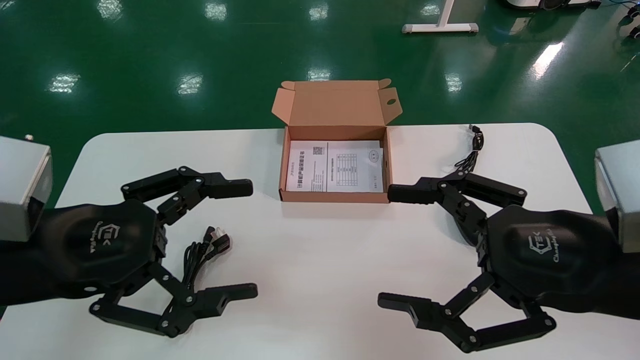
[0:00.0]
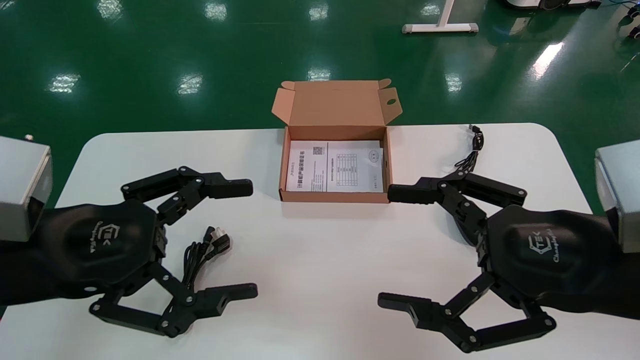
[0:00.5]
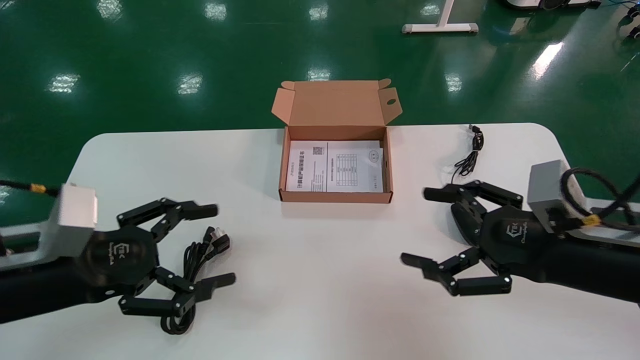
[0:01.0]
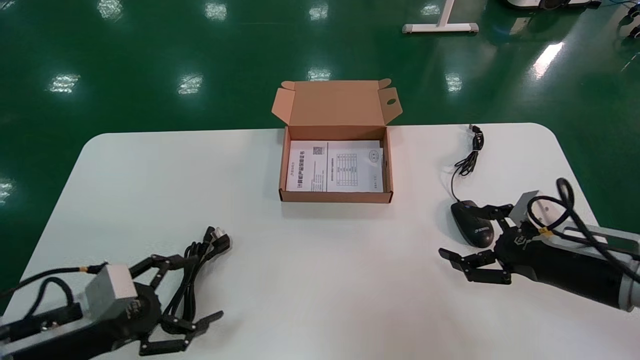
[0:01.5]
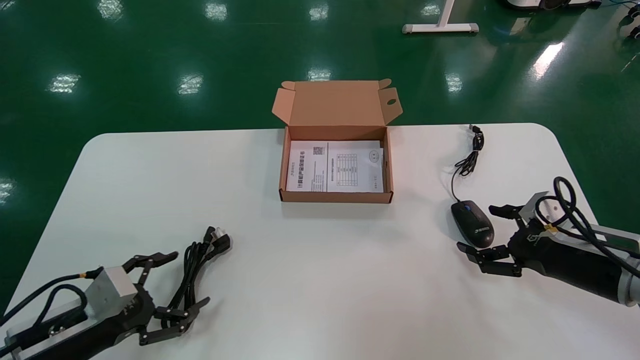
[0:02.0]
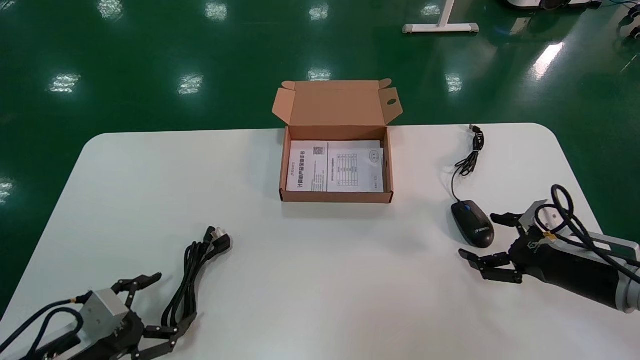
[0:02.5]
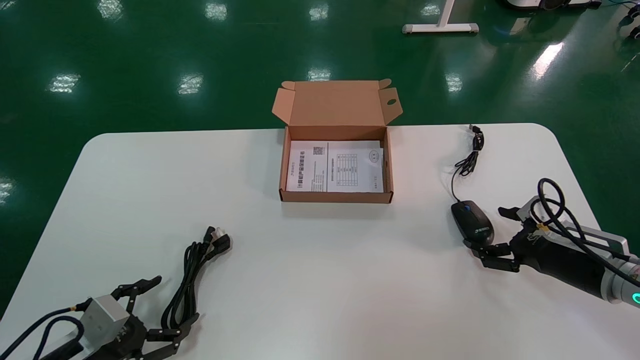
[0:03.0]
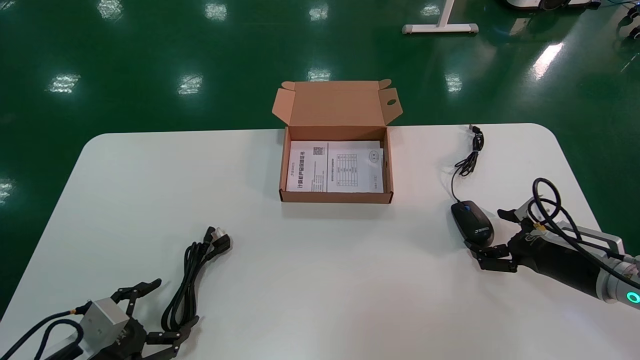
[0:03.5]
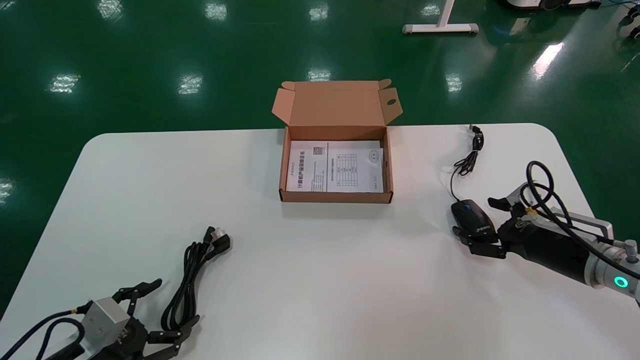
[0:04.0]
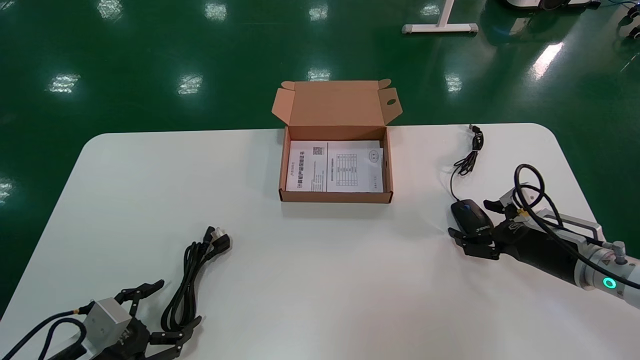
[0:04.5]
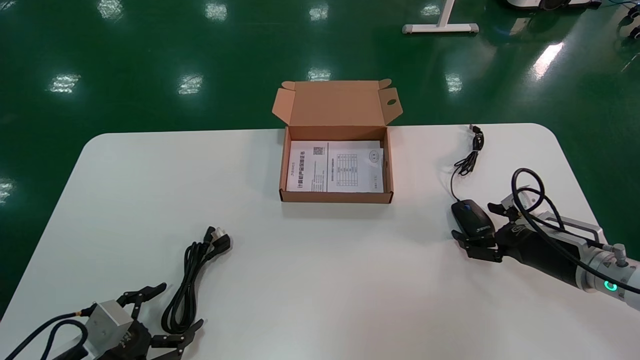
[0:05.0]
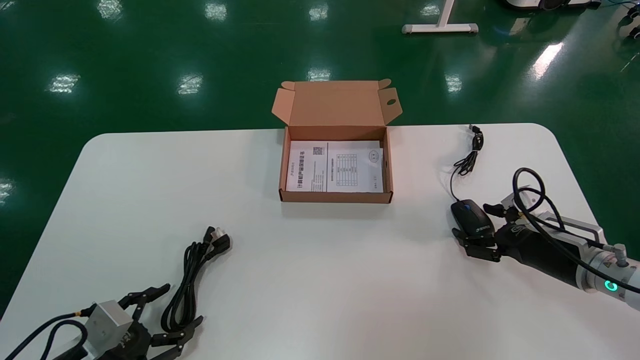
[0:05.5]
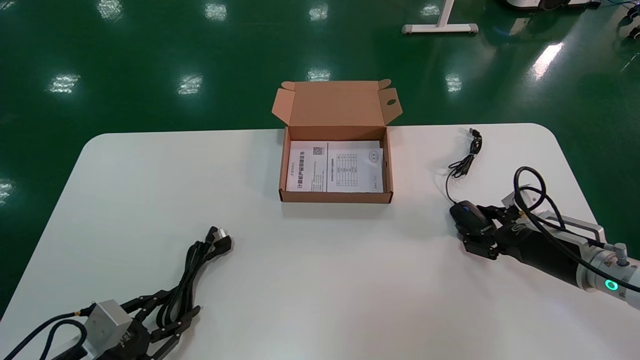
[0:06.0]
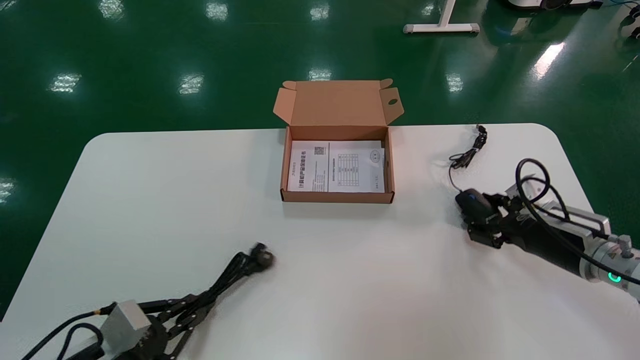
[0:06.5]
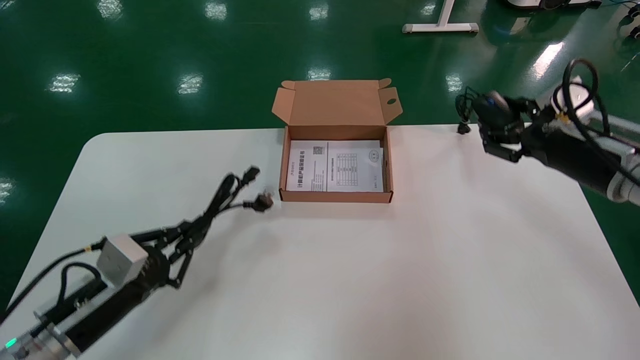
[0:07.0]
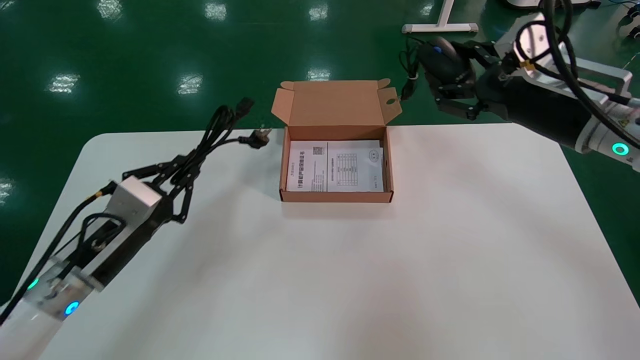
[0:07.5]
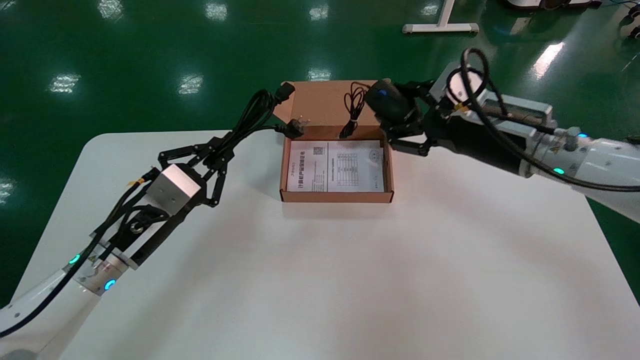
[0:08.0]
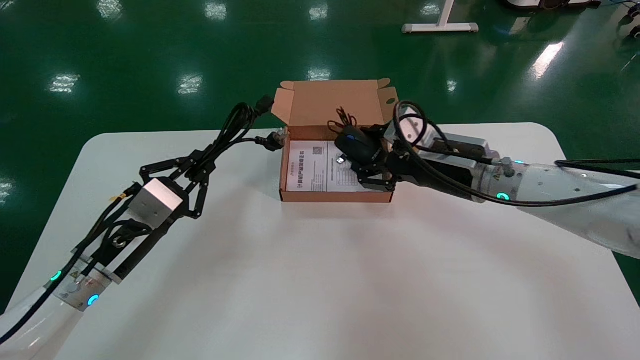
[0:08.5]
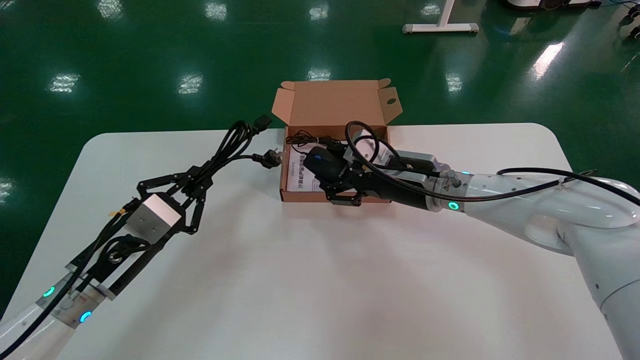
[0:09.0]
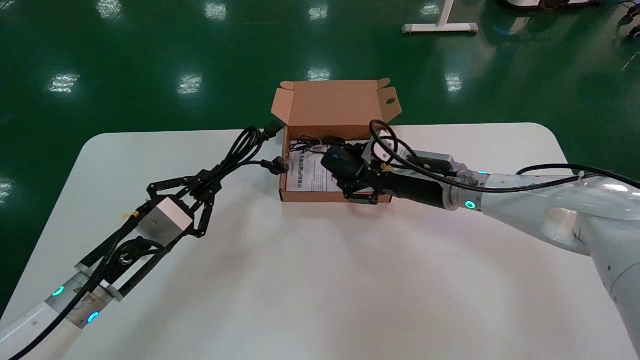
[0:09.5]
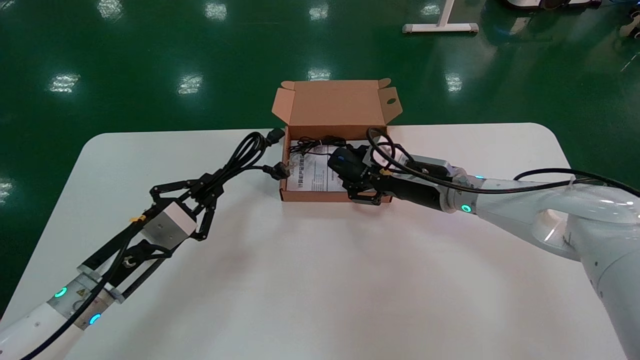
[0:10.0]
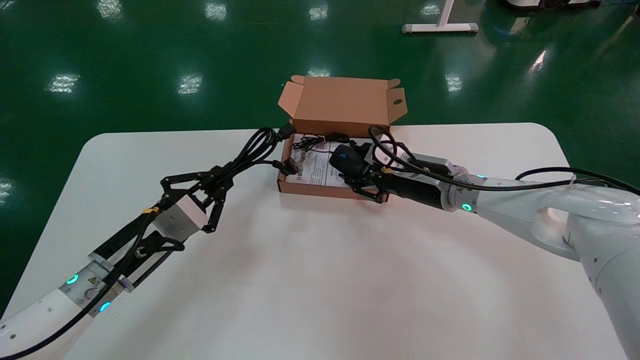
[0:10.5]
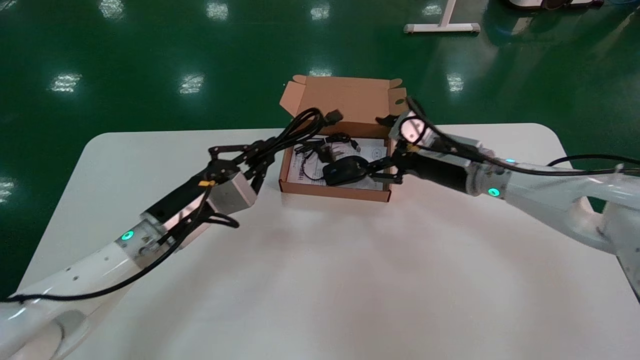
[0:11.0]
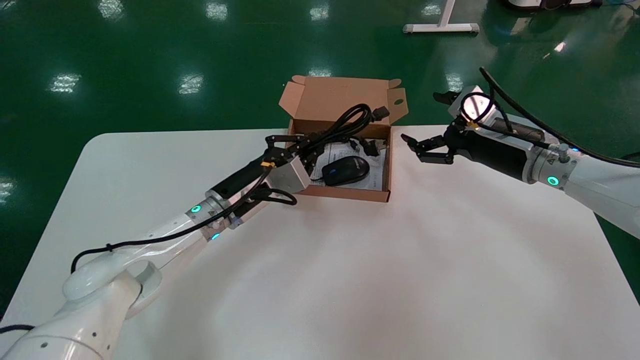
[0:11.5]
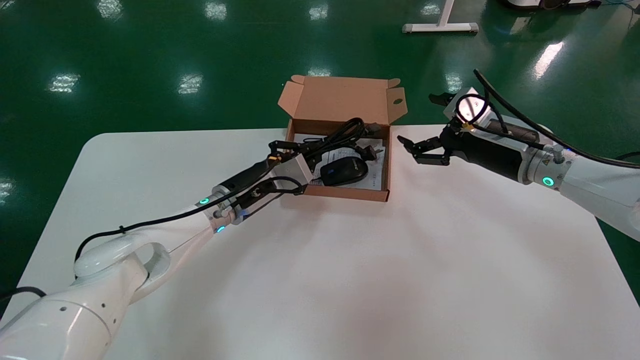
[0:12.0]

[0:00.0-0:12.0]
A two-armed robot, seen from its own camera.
Step, 0:01.0 to 0:06.0: Grab and pick up the mouse and power cord from the accessory packaging area.
0:00.0 to 0:02.0: The right gripper moves forward, downward and to the right, roughly 20 cm. Meanwhile the left gripper moves downward, some 20 cm.
0:02.0 to 0:04.0: The left gripper travels downward by roughly 5 cm.
0:04.0 to 0:06.0: The left gripper closes up. The right gripper closes.
0:06.0 to 0:08.0: The left gripper goes approximately 20 cm upward, forward and to the right, and closes. The right gripper heads upward and to the left, covering approximately 20 cm.
0:08.0 to 0:10.0: The right gripper travels downward, forward and to the left by some 15 cm.
0:10.0 to 0:12.0: The left gripper shifts about 20 cm forward and to the right. Meanwhile the right gripper shifts roughly 10 cm to the right and upward, and opens up.

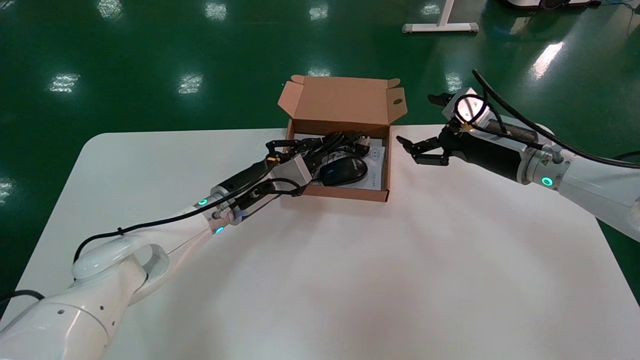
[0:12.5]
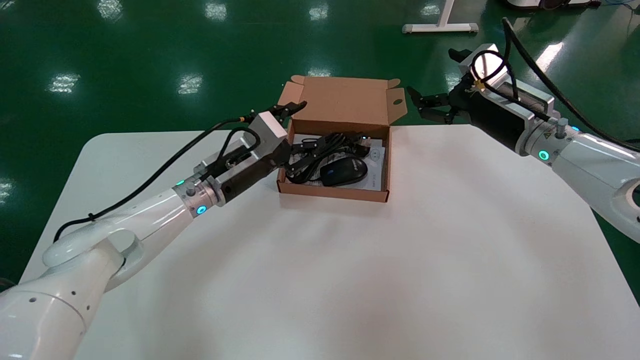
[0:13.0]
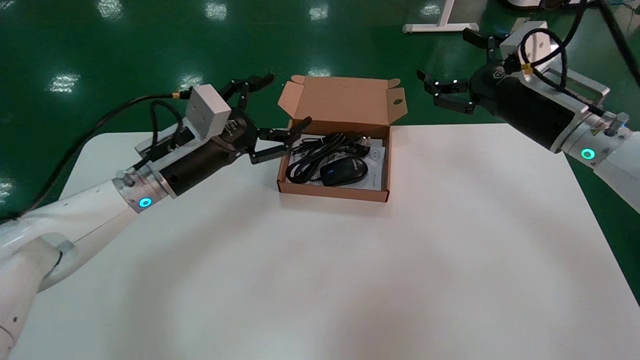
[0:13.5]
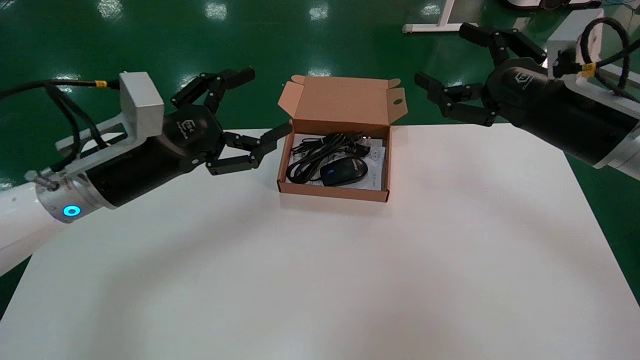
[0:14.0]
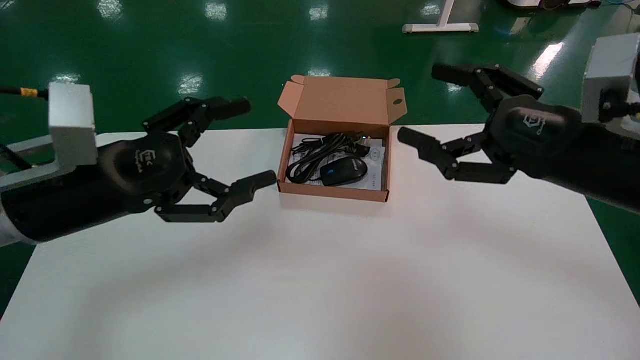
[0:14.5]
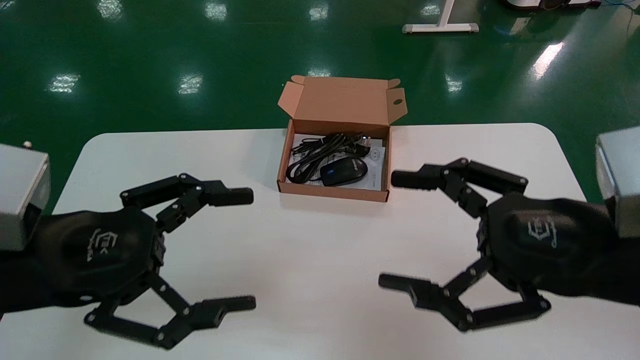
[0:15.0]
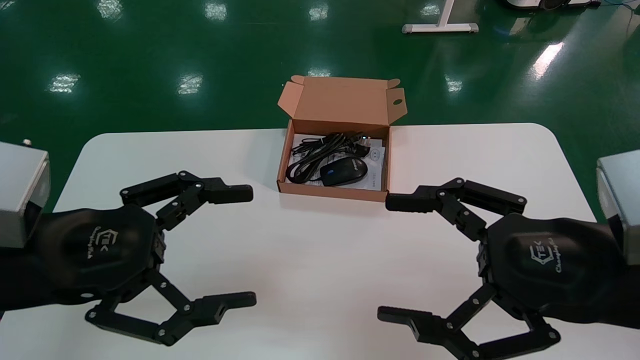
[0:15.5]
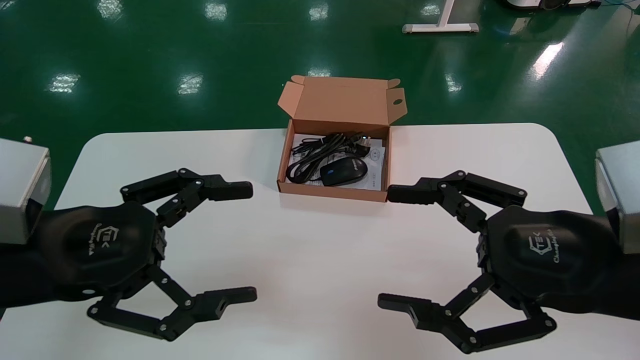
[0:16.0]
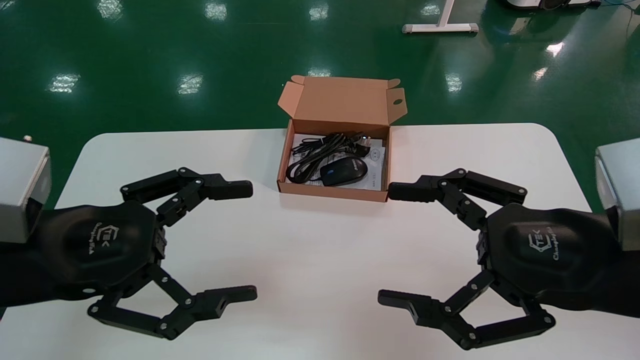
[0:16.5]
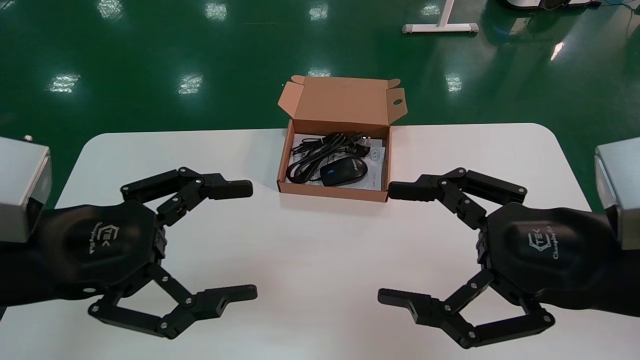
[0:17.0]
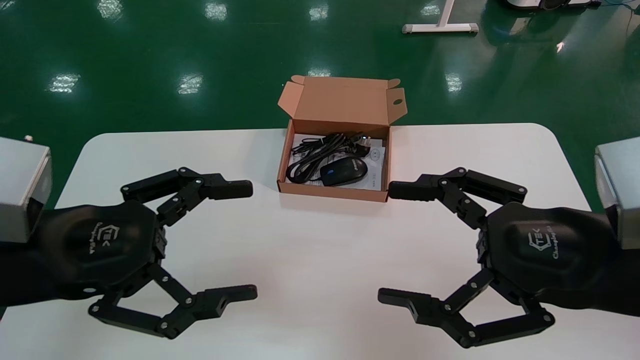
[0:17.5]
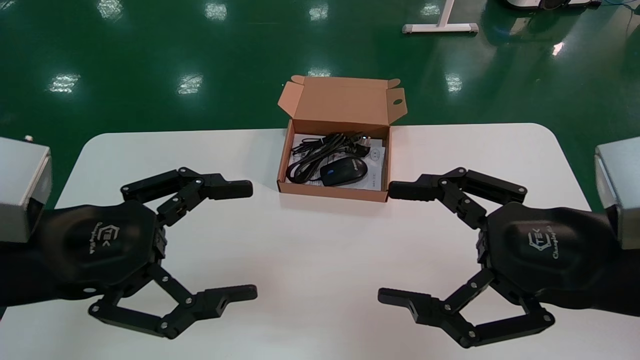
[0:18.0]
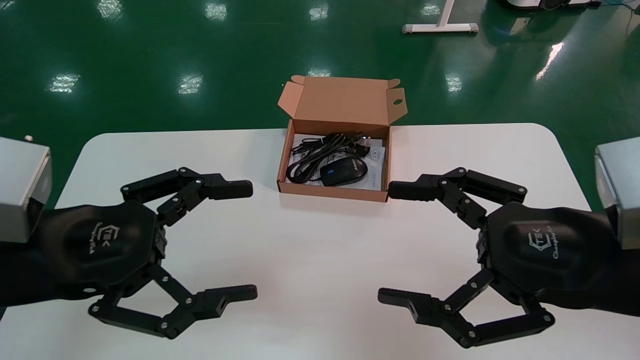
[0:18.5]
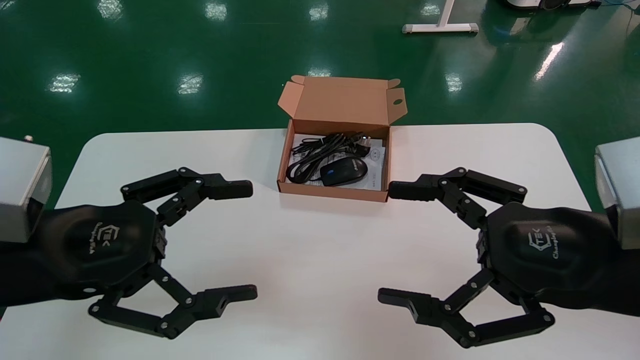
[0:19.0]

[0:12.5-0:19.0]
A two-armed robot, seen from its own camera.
0:12.5 to 0:14.5: The left gripper is displaced backward, to the left and upward by approximately 25 cm, and opens up. The right gripper goes roughly 15 cm backward.
0:14.5 to 0:17.0: Both grippers move backward, roughly 10 cm.
0:17.0 to 0:19.0: Both grippers stay put.
